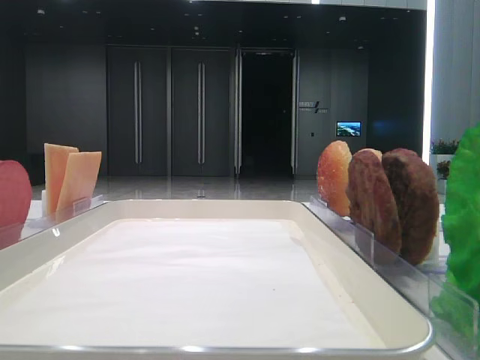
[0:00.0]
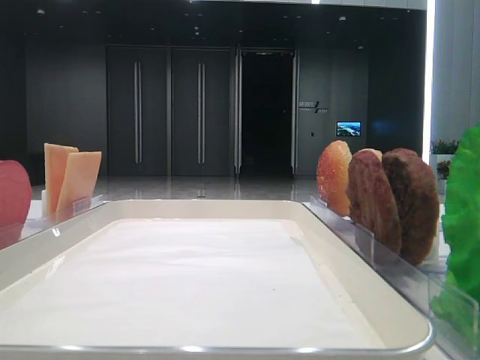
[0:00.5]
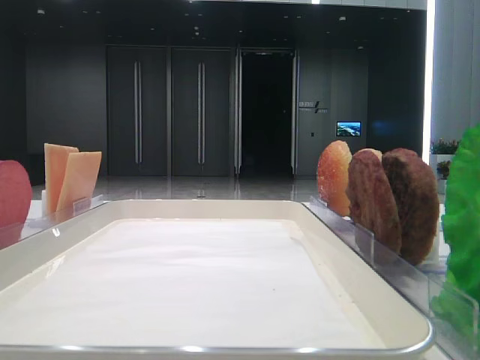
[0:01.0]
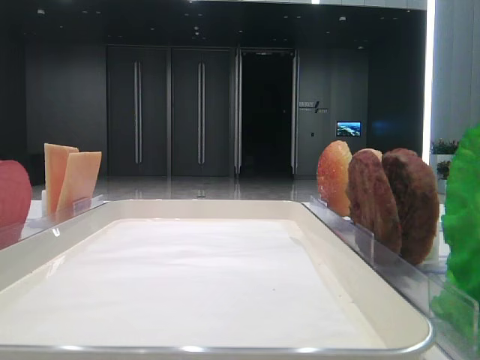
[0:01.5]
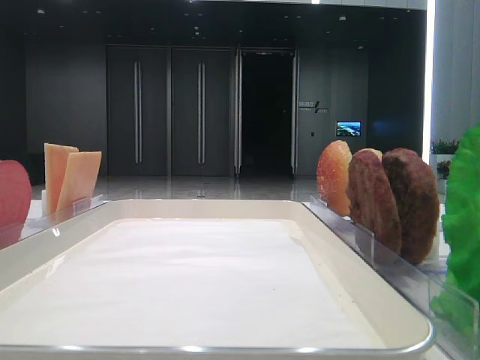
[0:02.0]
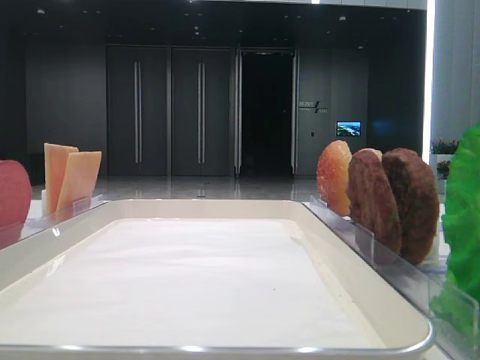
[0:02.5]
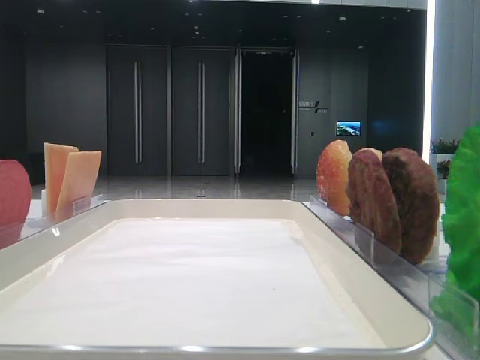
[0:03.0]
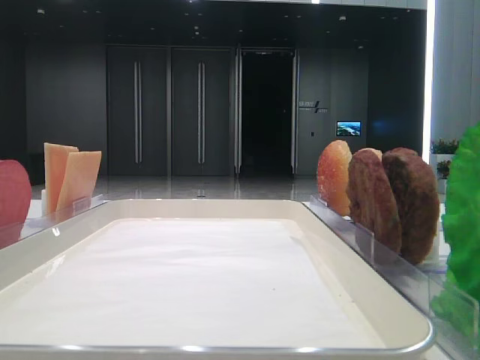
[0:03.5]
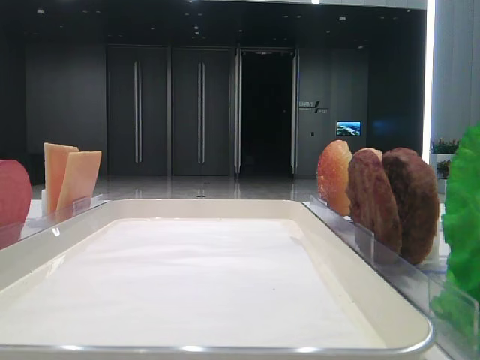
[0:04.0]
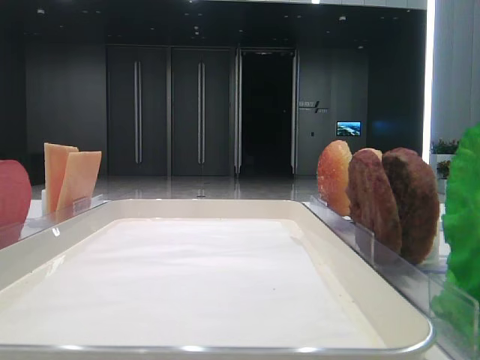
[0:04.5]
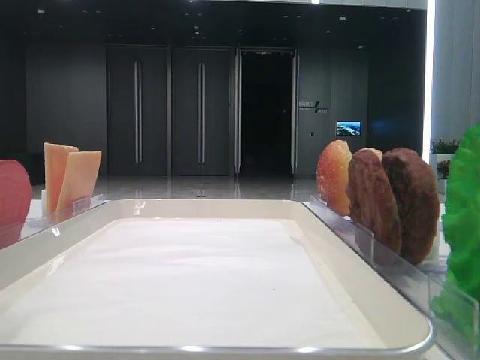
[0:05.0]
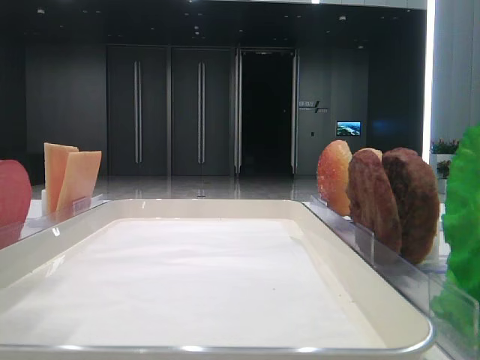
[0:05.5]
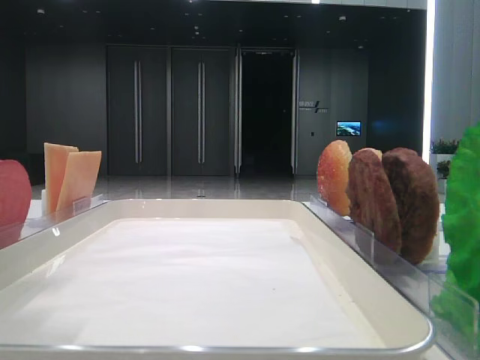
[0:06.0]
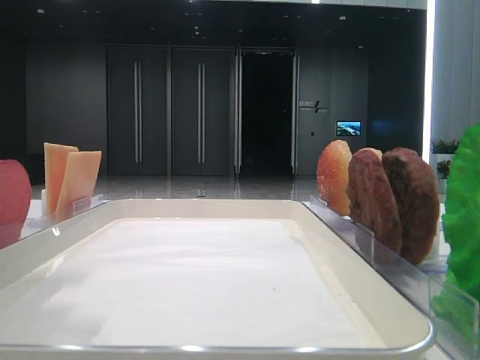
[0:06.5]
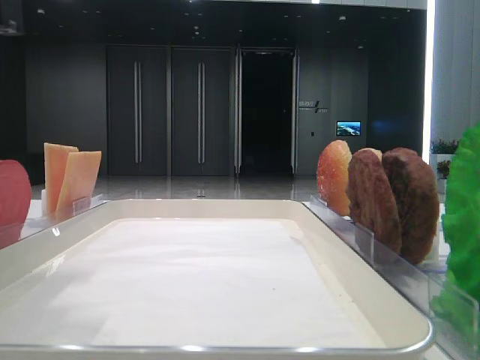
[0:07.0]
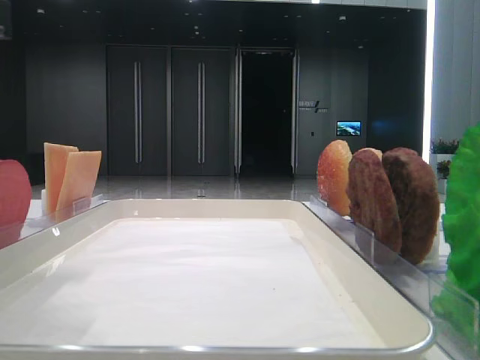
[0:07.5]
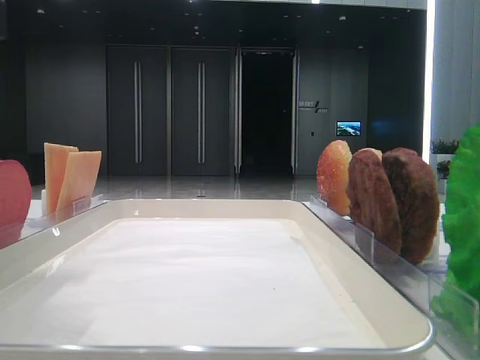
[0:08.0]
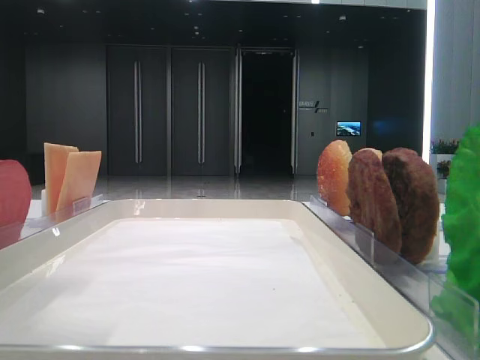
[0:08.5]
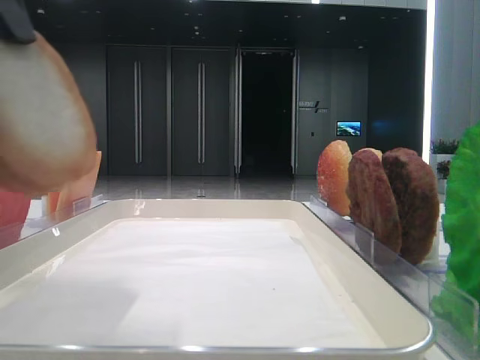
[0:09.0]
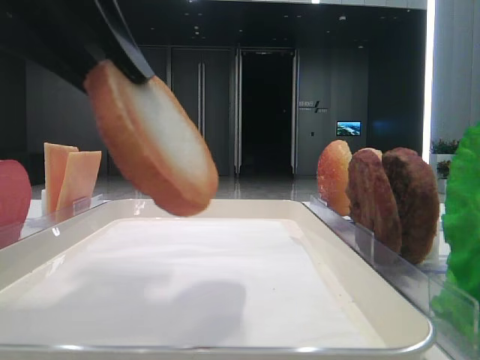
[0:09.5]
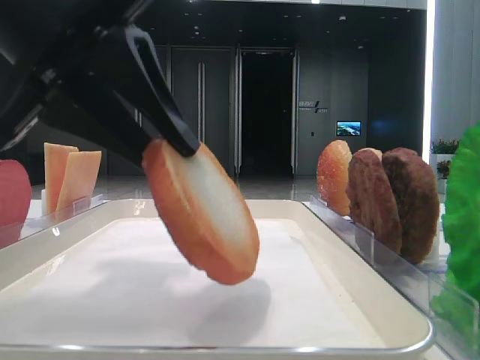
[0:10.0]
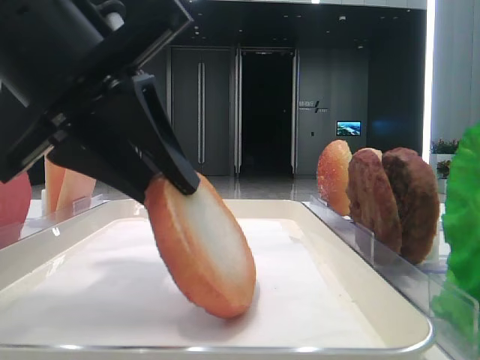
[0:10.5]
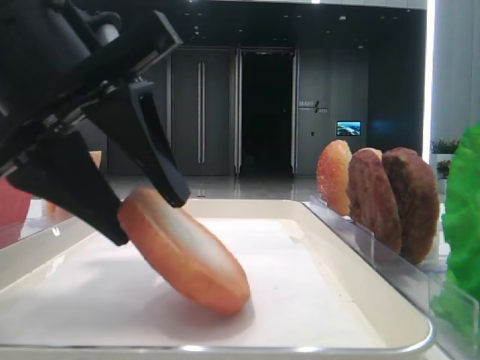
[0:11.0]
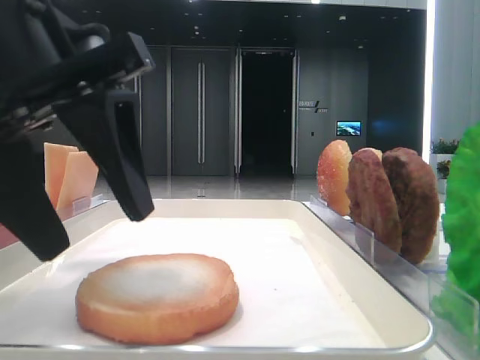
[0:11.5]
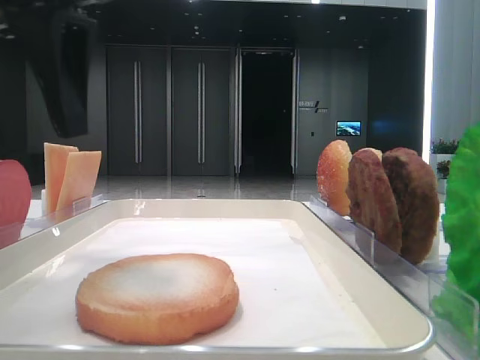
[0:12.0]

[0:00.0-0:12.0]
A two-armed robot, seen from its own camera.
Step, 0:06.0 to 0:11.0: Place the bread on the tray with the left hand.
0:04.0 to 0:06.0: The left gripper heads to the right, covering approximately 10 cm.
0:08.0 to 0:10.0: The left gripper travels to the right by about 5 cm.
0:10.0 to 0:12.0: The left gripper shifts by about 5 cm, and opens.

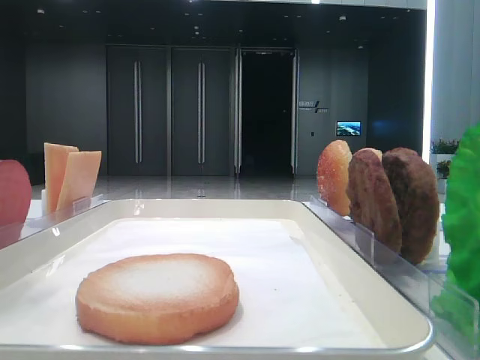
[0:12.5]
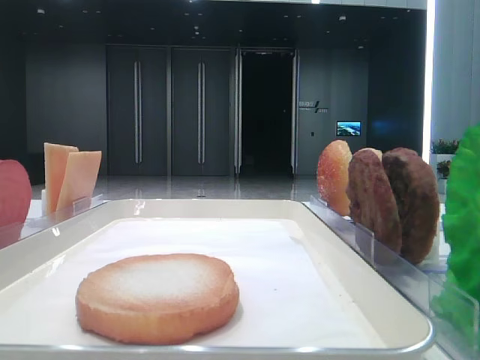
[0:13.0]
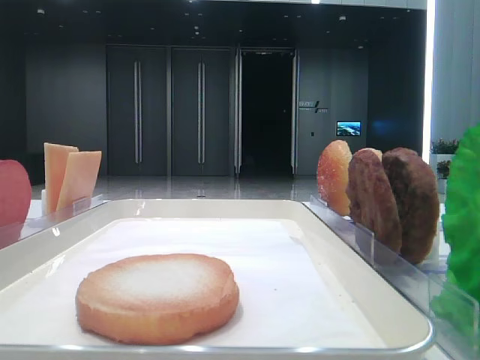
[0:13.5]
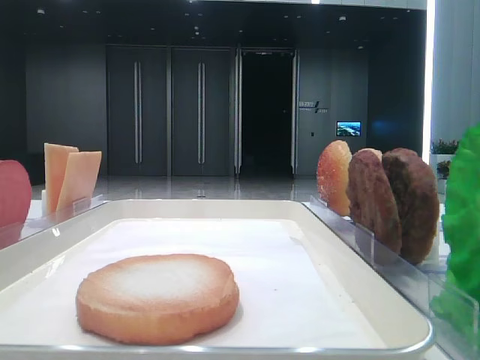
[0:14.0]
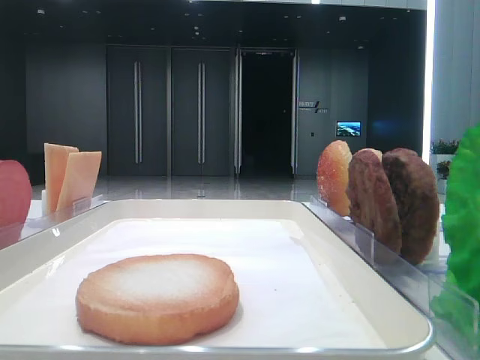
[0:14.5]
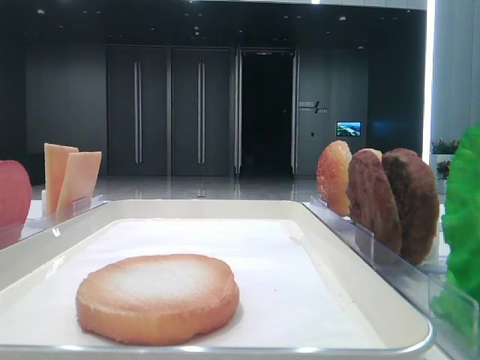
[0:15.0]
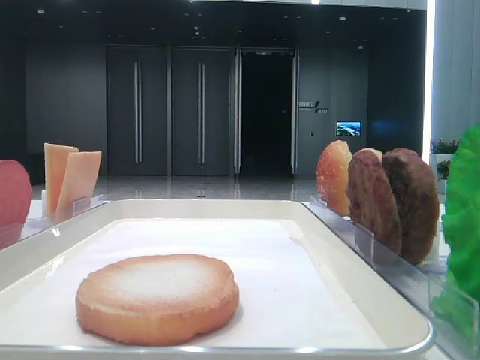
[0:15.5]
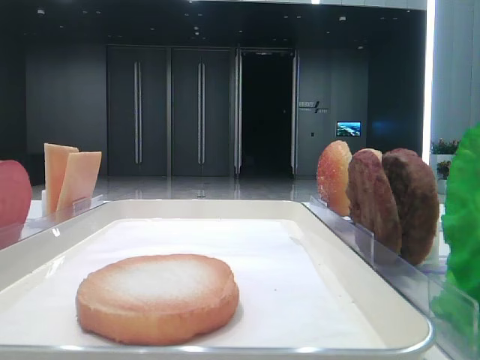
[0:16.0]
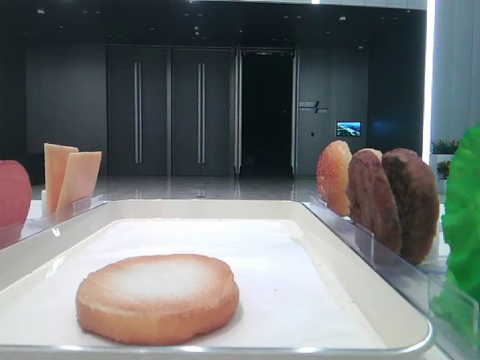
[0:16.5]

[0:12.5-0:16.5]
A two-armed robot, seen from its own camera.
0:12.5 to 0:14.5: The left gripper shifts approximately 20 cm backward.

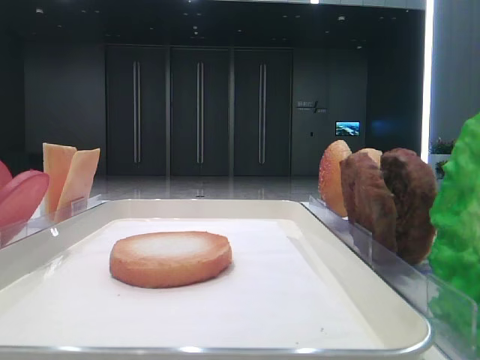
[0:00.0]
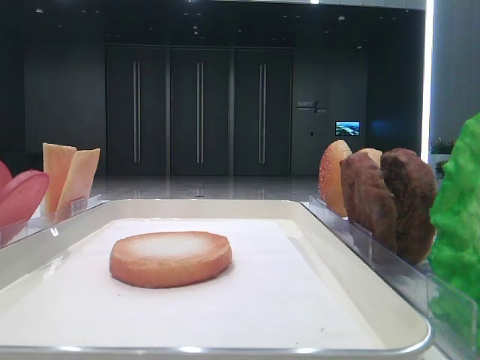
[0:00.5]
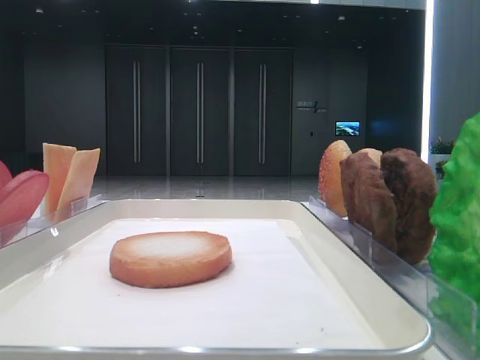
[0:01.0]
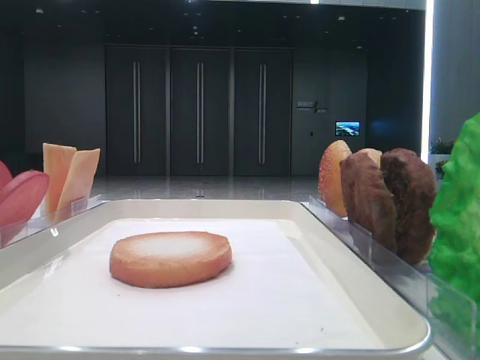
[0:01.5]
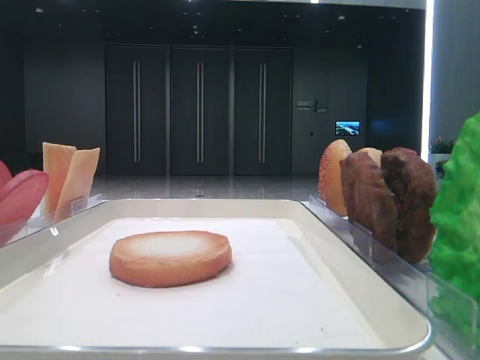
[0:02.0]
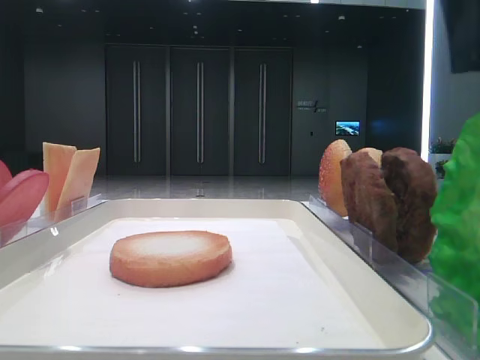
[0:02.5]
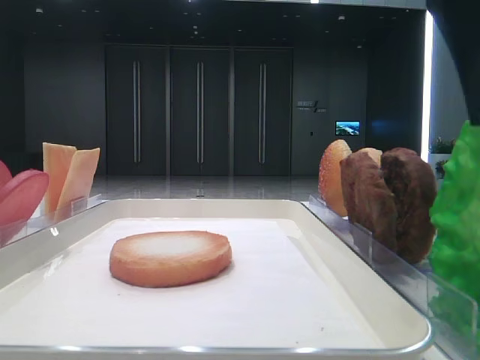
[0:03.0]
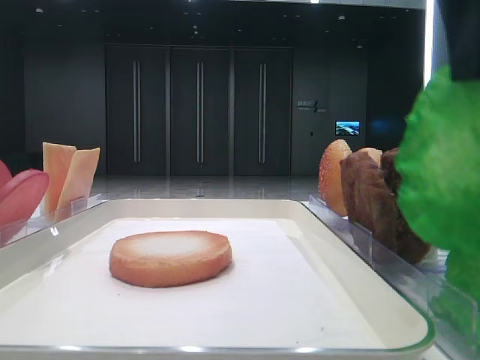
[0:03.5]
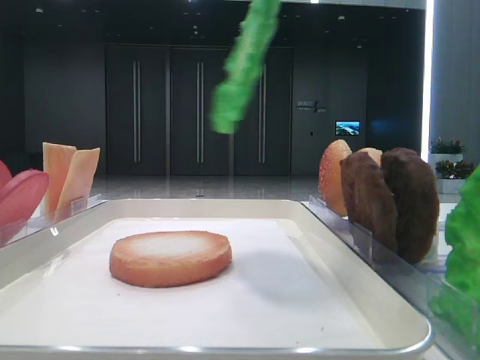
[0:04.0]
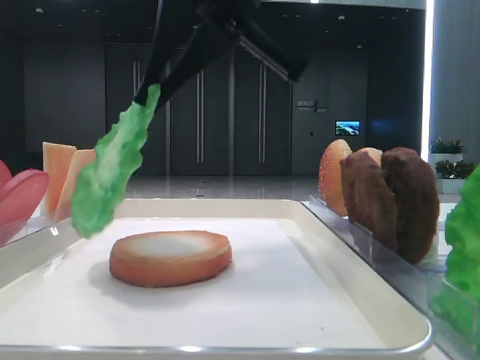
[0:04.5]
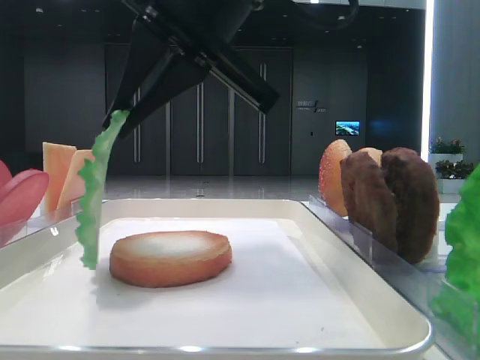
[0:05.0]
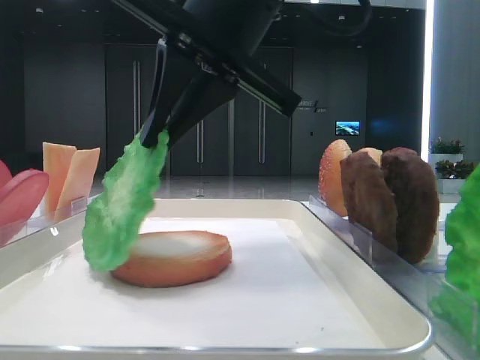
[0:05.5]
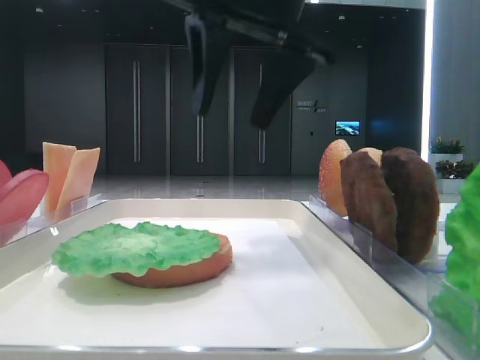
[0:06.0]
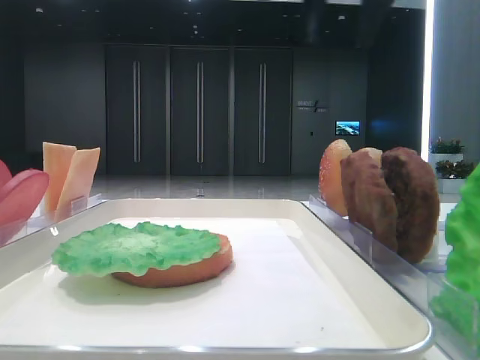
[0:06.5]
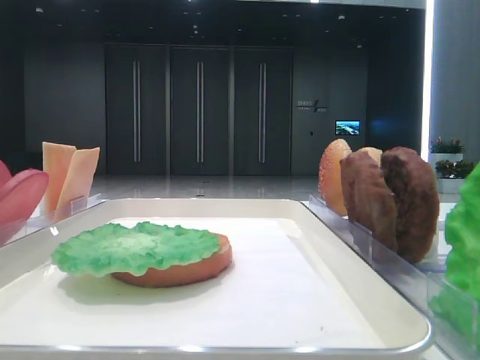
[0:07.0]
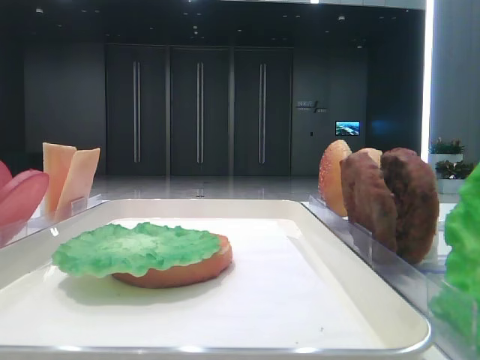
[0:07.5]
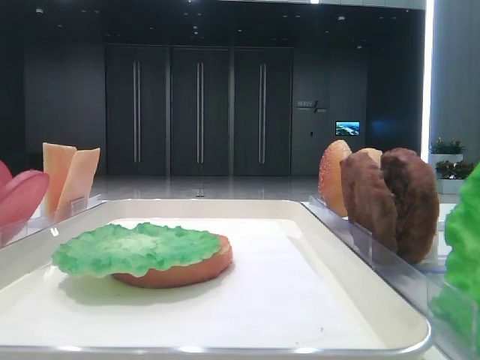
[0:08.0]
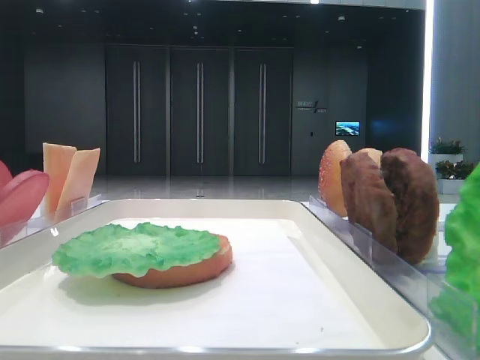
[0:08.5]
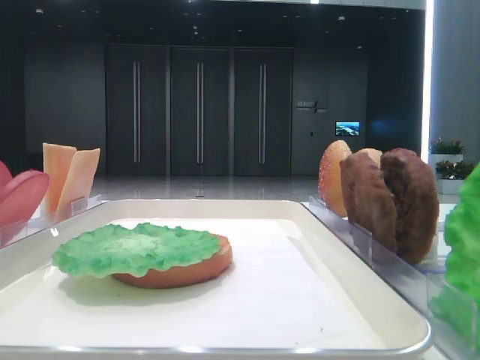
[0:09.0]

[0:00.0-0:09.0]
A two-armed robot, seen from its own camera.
Step, 0:00.0 to 0:03.0: Grab the lettuce leaf with the right hand.
Step, 0:03.5 to 0:05.5: Place the lettuce leaf on the bottom bread with the right hand.
0:02.0 to 0:04.5: The right gripper goes approximately 30 cm to the left, and closes up.
0:04.5 to 0:07.0: The right gripper moves to the right and forward, some 35 cm, and opens.
0:07.0 to 0:09.0: The right gripper heads backward, covering about 40 cm.

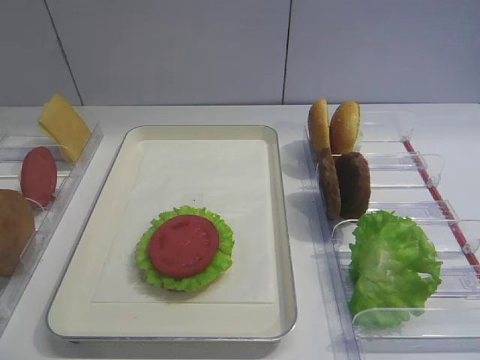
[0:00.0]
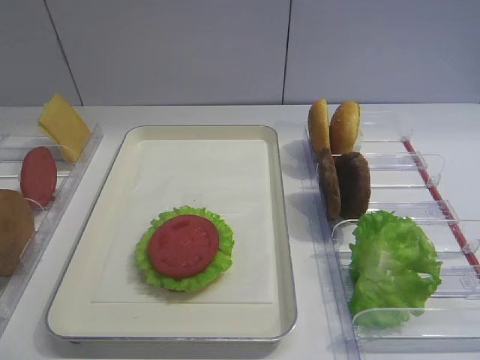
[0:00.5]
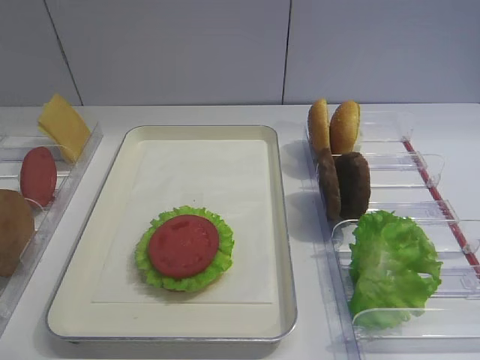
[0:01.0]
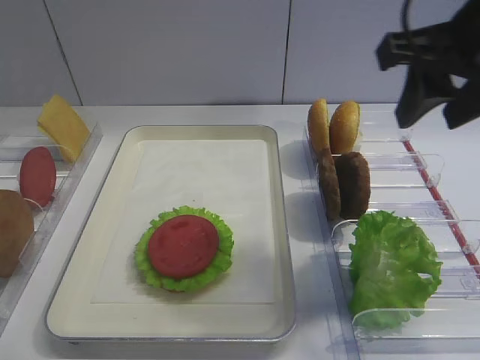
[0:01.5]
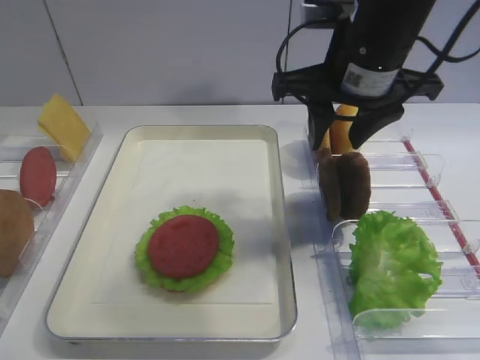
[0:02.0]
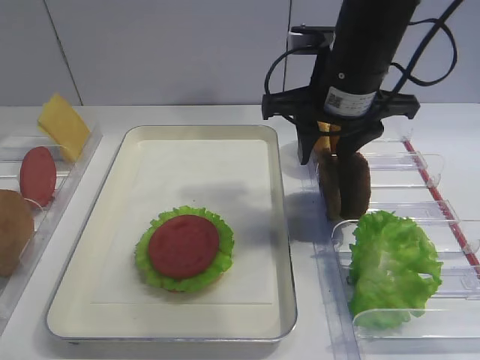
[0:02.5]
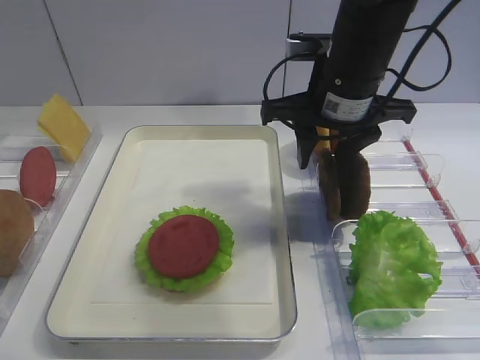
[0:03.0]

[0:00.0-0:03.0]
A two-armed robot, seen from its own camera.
0:01.5 to 0:03.0: The right gripper goes roughly 15 cm forward, downward and to the left.
